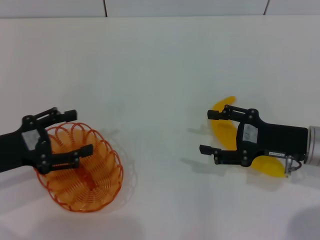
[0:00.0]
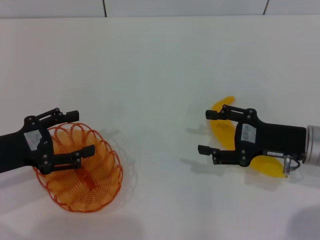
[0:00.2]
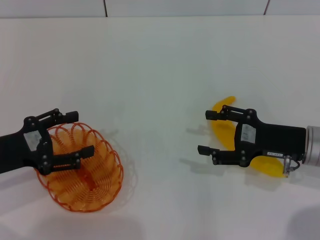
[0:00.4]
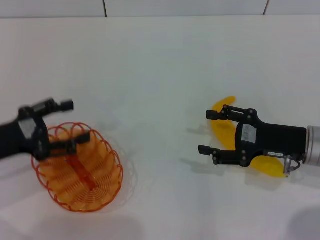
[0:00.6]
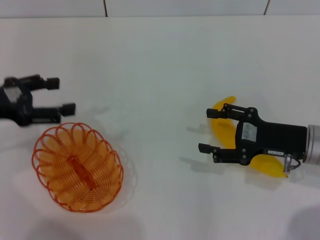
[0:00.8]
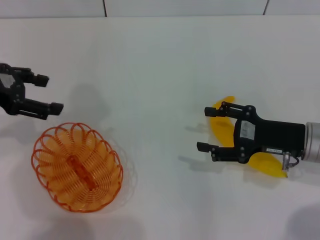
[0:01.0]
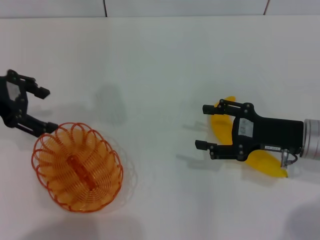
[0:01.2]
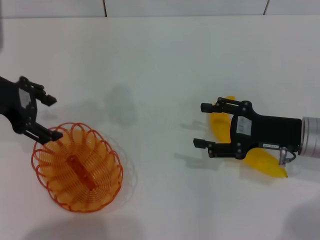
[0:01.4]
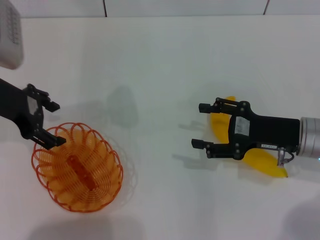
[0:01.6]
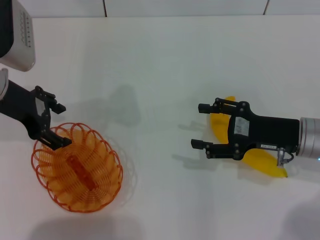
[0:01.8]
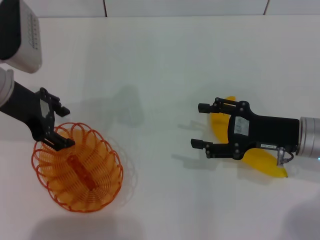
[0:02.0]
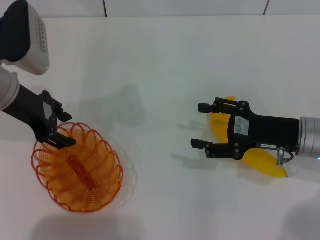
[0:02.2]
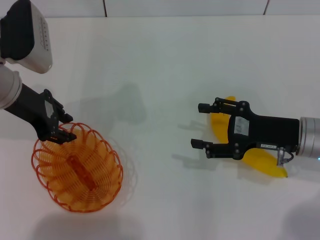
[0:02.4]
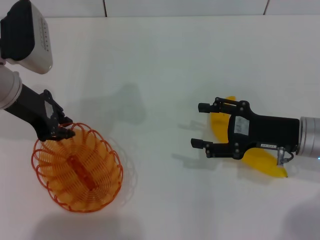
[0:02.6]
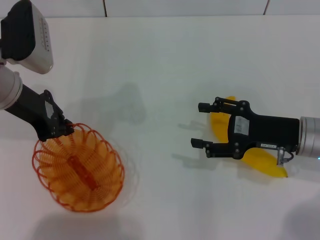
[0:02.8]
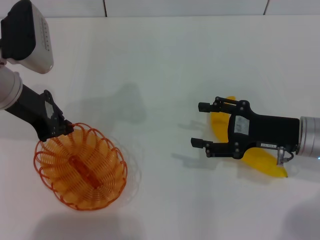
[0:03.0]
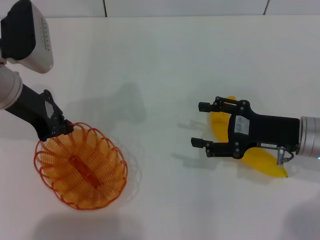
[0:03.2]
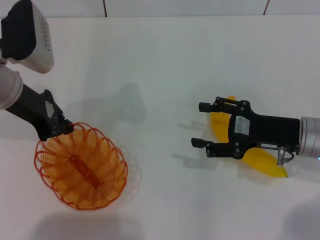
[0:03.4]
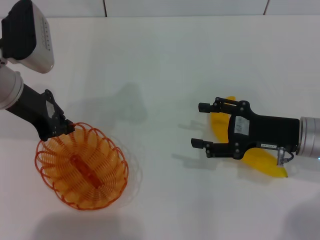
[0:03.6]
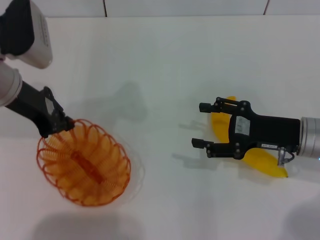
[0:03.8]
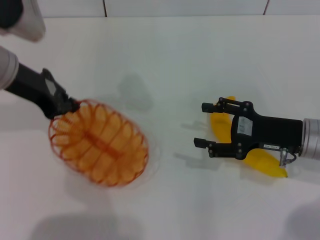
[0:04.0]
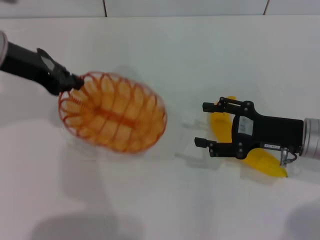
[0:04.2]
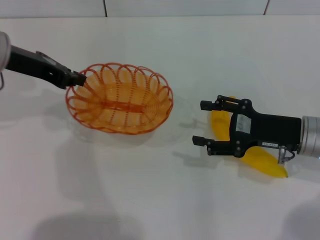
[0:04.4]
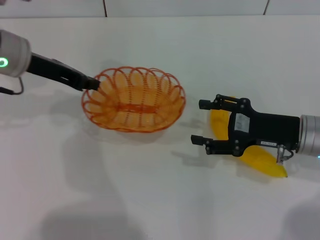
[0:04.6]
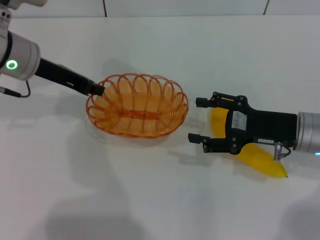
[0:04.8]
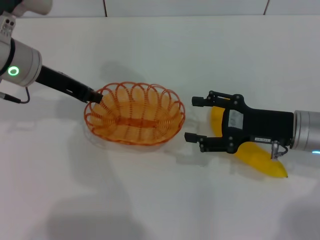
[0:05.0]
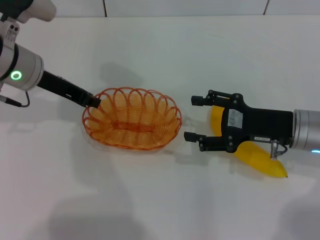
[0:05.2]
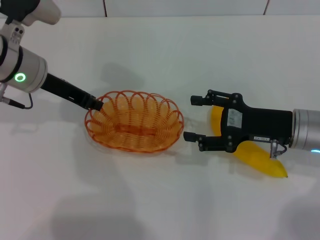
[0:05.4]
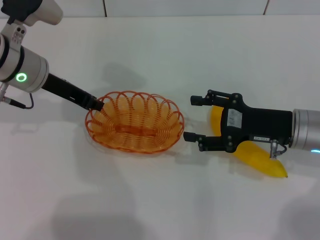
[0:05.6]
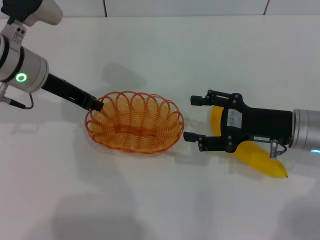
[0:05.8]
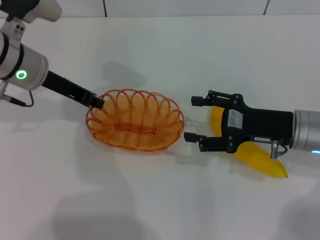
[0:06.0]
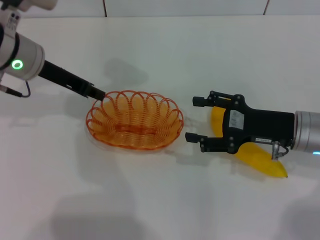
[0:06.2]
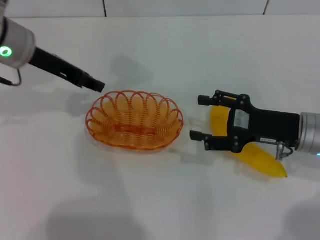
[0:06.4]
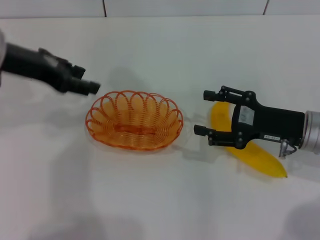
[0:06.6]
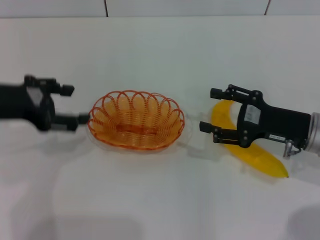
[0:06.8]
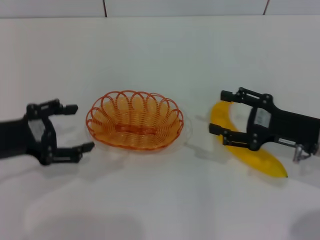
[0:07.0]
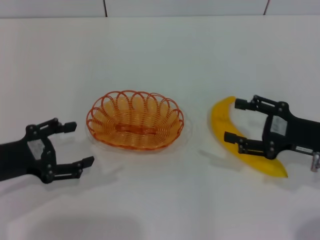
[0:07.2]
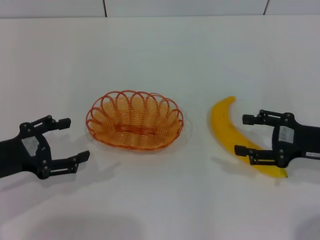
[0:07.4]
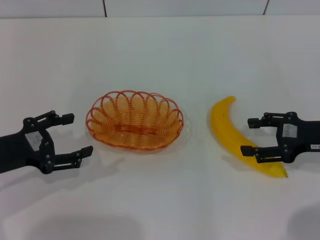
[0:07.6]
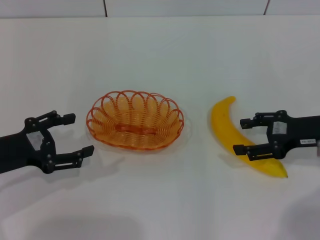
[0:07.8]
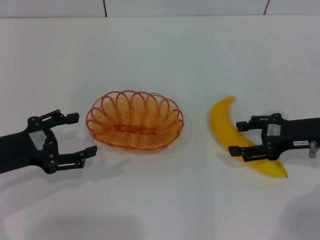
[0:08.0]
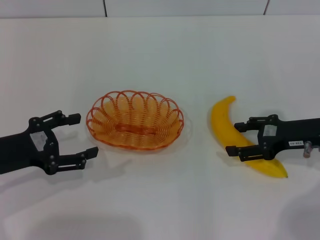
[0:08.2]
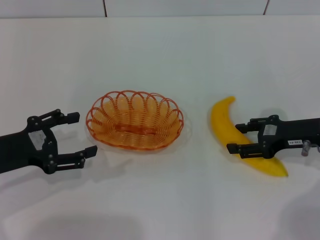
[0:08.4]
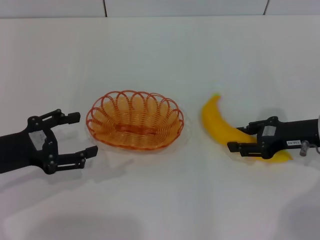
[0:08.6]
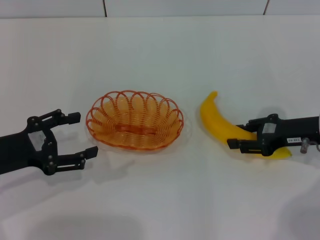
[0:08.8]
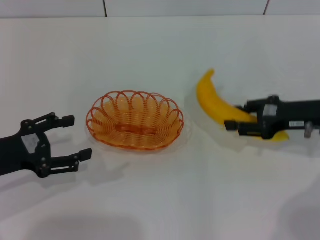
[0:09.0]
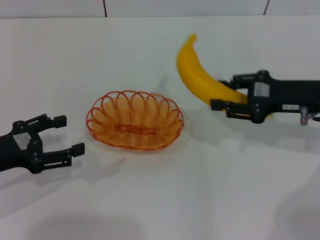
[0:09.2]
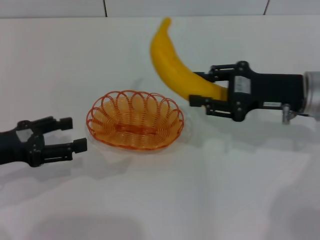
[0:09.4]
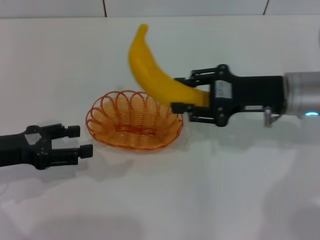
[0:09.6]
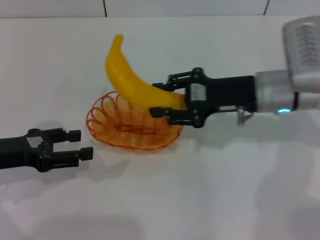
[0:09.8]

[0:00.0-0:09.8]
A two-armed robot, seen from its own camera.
Step, 0:00.0 to 0:03.8: Pick up the basket with the left gripper.
Step, 0:04.2 to 0:06.4: Place the basket in the center of view with the left gripper.
Step, 0:06.6 to 0:08.8: Pick up the banana with the right gripper.
0:00.0 to 0:01.4: The left gripper shifts about 15 cm upward and forward.
0:01.4 to 0:02.8: The left gripper ends up approximately 5 cm from where it was, and closes.
0:04.2 to 0:05.6: The left gripper heads downward, covering roughly 5 cm.
0:05.6 to 0:07.0: The left gripper heads backward and to the left, covering roughly 15 cm, and opens.
0:08.4 to 0:09.8: The right gripper goes about 10 cm to the left, and closes its fingers.

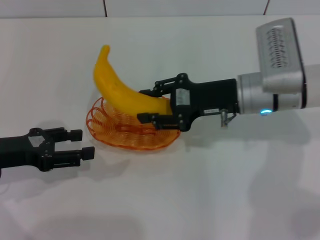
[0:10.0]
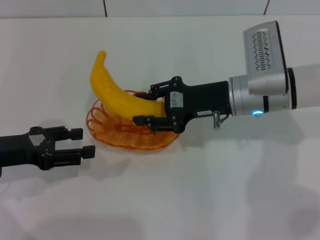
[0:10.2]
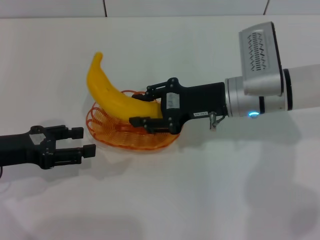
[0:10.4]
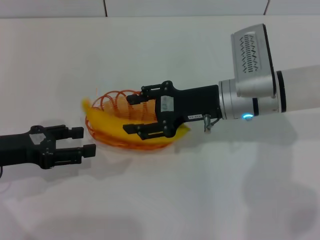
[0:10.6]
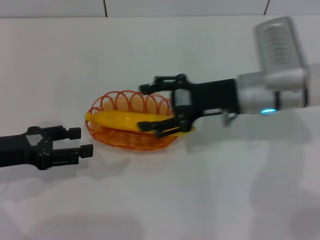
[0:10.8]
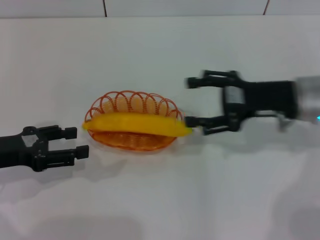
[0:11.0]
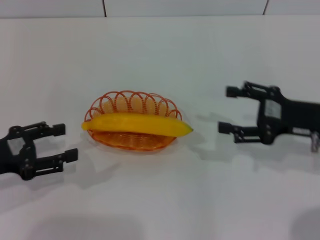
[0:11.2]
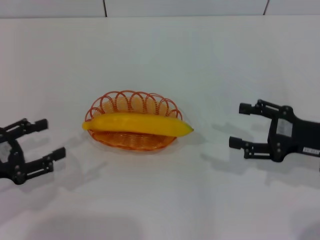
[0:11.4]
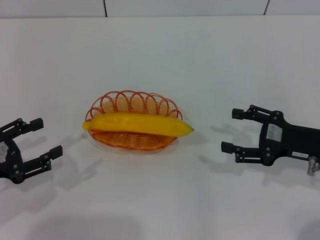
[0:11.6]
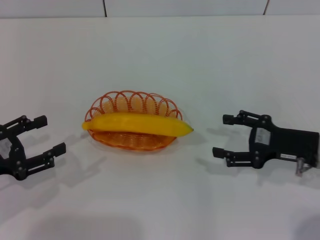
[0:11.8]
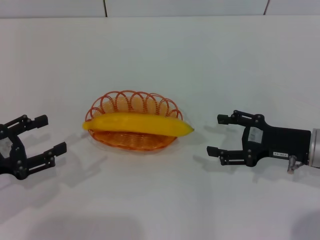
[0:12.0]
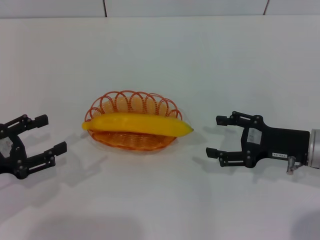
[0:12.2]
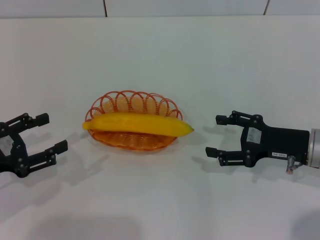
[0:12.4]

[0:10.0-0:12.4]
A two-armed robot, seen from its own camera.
0:10.0 to 0:11.2: The right gripper is displaced to the right and backward by some 15 cm, and opens.
0:11.2 to 0:12.4: The grippers stay close to where they were, moving slightly.

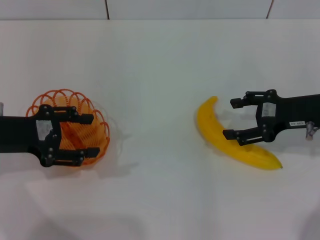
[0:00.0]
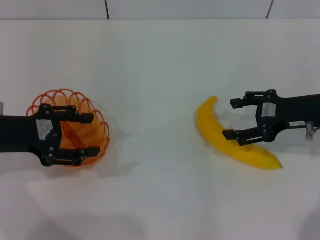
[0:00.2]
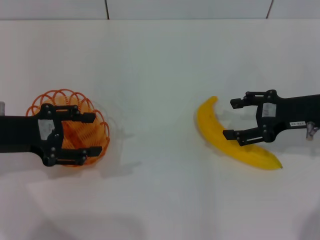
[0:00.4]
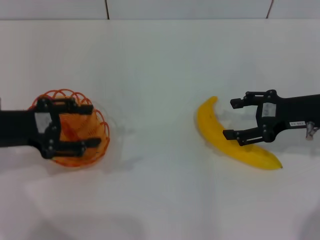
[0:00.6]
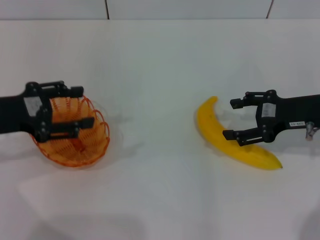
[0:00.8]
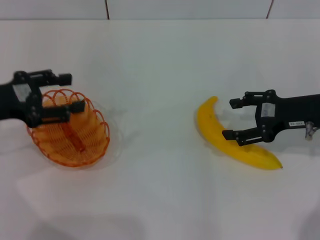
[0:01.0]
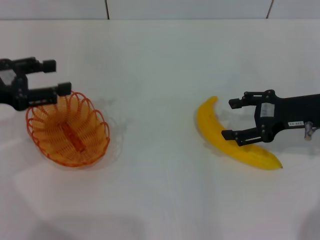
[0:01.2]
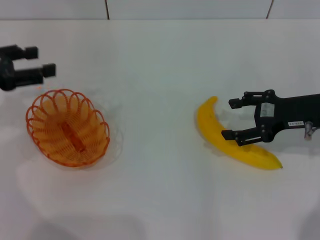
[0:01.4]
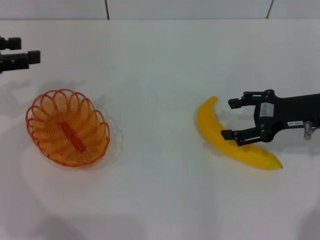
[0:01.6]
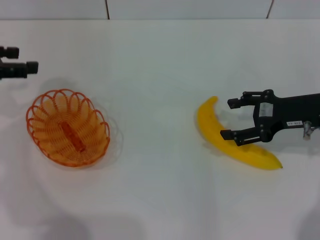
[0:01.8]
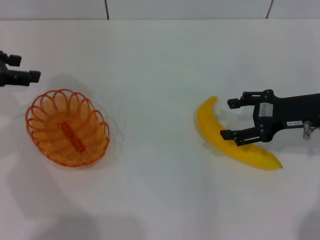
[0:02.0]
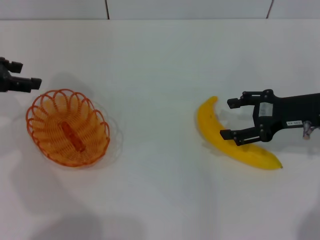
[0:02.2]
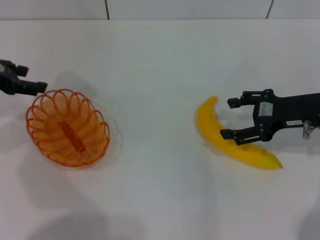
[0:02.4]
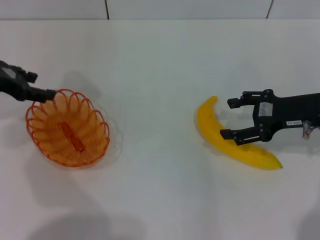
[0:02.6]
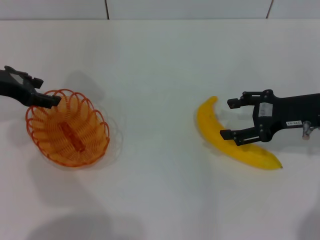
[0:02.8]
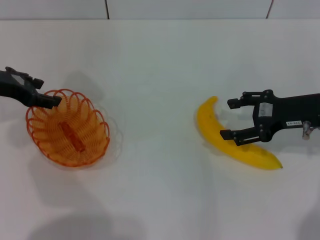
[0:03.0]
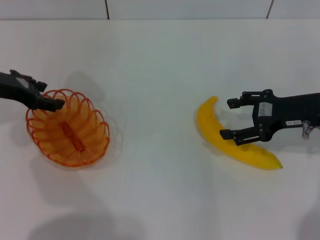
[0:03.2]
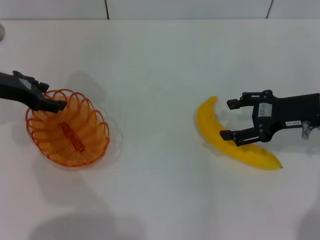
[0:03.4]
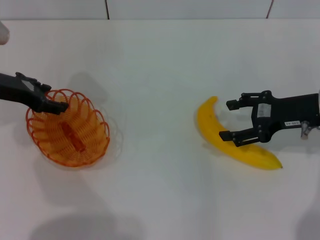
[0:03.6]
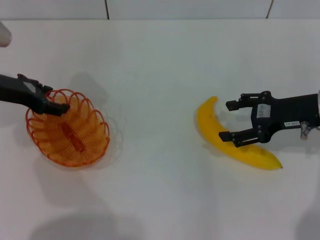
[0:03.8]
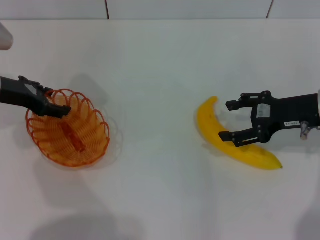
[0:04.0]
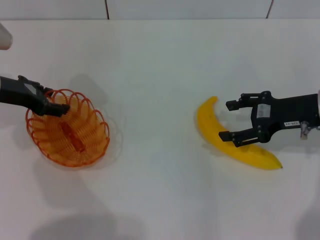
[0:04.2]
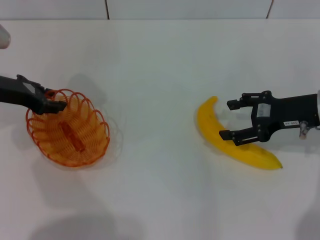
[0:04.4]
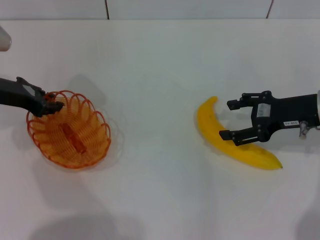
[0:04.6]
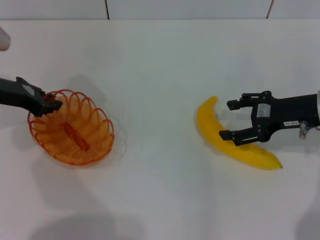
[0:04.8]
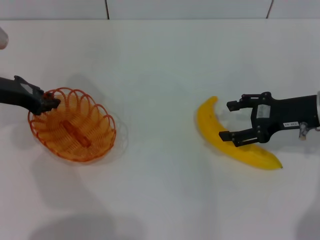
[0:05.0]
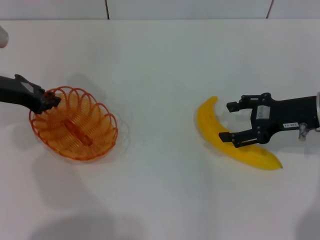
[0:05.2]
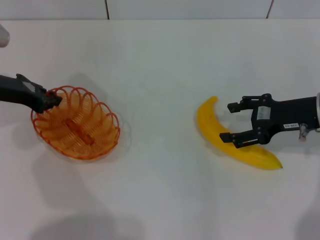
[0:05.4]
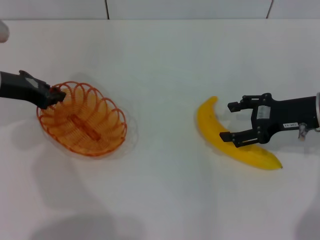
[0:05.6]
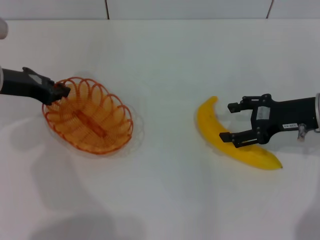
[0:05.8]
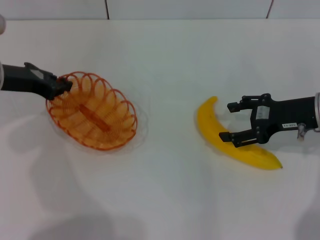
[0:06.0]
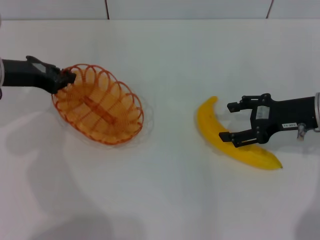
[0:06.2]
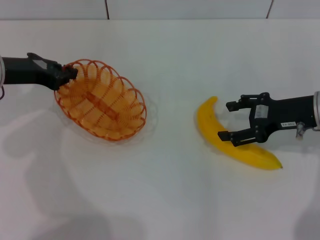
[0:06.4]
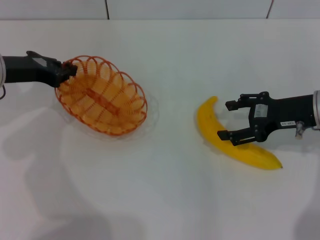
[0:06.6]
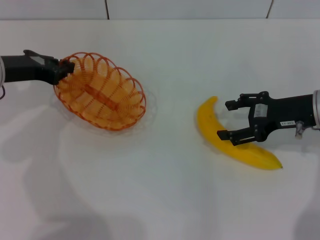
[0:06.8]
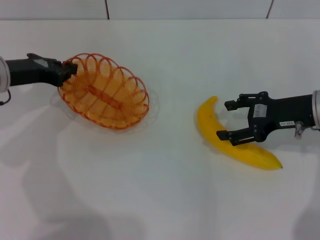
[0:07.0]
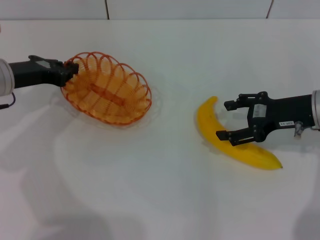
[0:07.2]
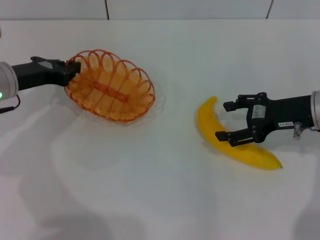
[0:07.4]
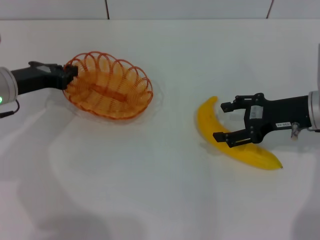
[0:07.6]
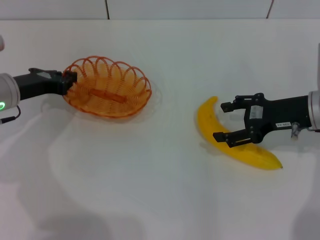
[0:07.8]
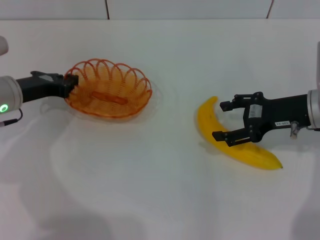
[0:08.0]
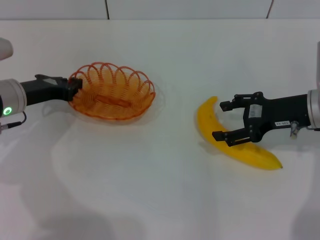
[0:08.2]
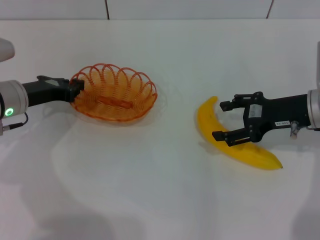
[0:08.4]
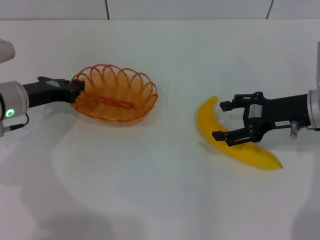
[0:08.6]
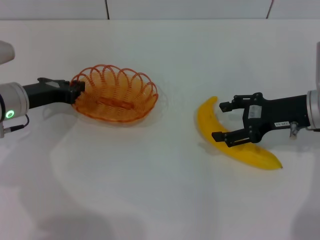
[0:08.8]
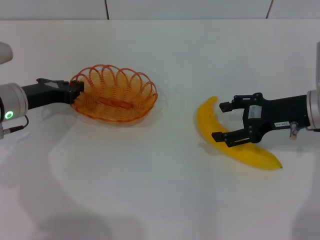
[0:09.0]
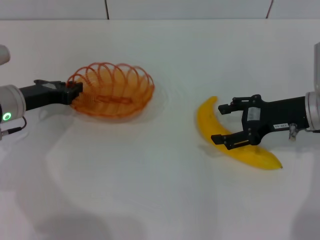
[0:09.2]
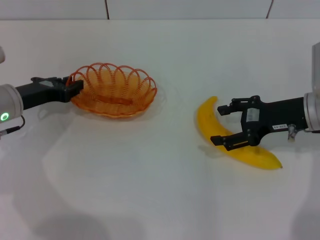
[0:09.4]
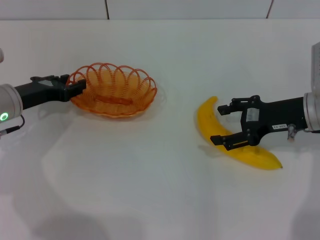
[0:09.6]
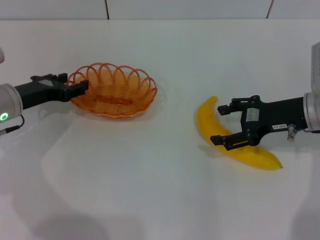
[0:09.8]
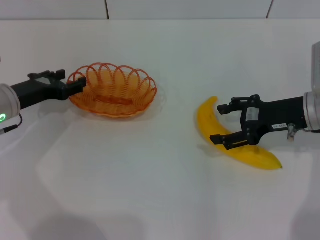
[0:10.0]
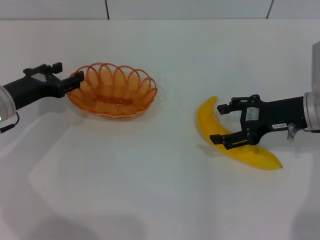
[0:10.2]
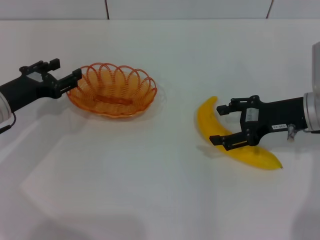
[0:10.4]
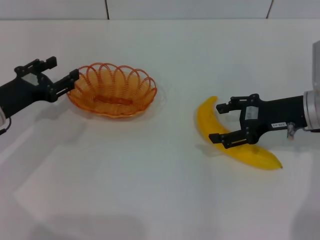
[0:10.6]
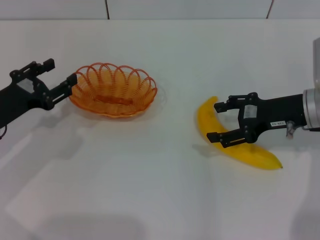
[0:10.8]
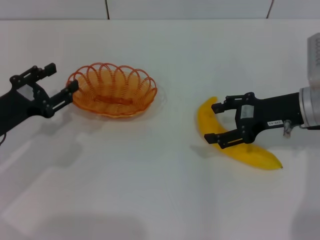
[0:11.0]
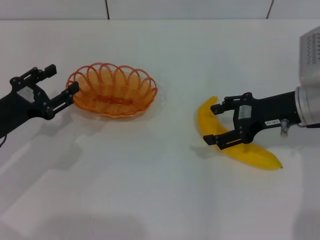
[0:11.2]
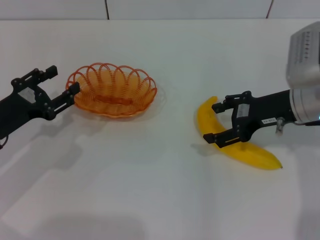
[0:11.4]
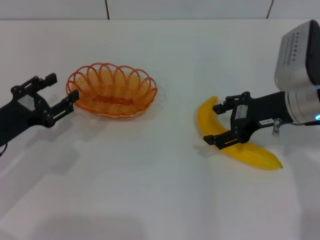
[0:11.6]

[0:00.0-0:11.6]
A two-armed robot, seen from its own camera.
Step, 0:00.0 to 0:06.8: Pick up the basket with the left gripper.
Step, 0:07.0 to 0:09.8: Place the basket in the center of view with the left gripper.
0:00.0 to 0:01.4: The left gripper changes place by roughly 5 cm.
0:01.4 to 0:02.8: The left gripper heads forward, covering about 5 cm.
0:02.8 to 0:04.4: The grippers stay close to where they were, moving slightly.
0:04.4 to 0:05.8: The left gripper closes up.
0:05.8 to 0:07.2: The grippers stay close to where they were, moving slightly.
0:07.2 to 0:08.8: The grippers make only small movements.
0:08.8 to 0:10.2: The left gripper opens up.
0:10.2 to 0:11.6: The left gripper moves backward, some 5 cm.
